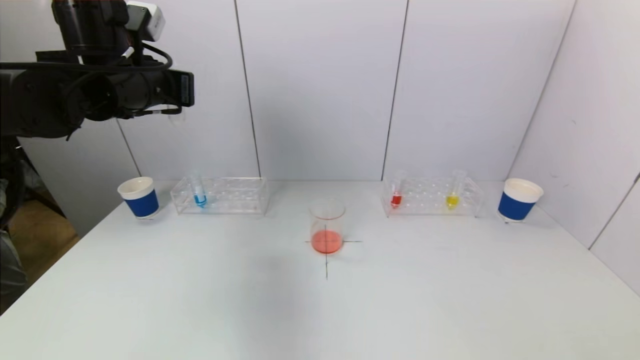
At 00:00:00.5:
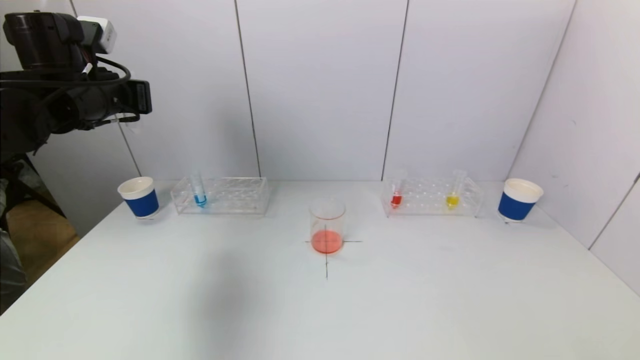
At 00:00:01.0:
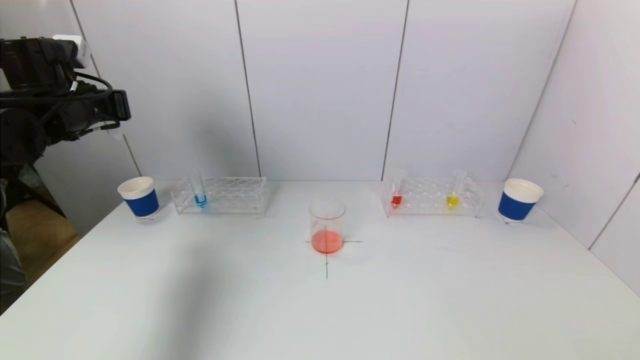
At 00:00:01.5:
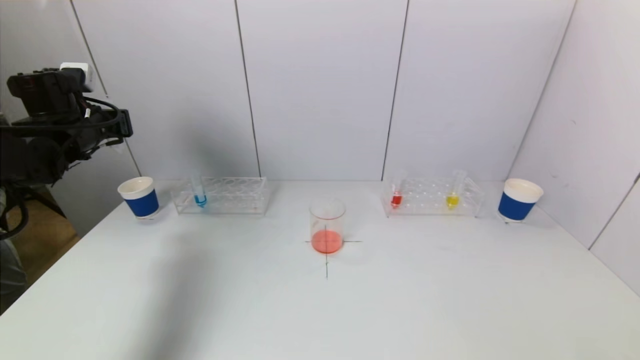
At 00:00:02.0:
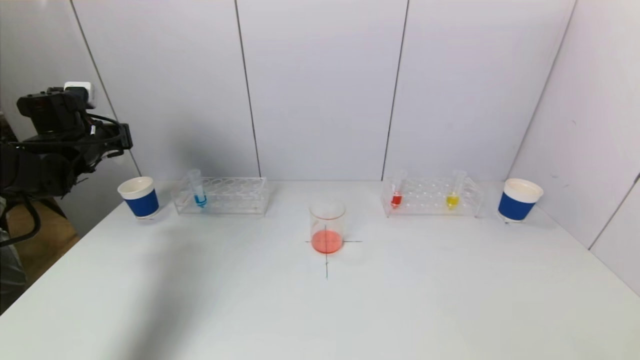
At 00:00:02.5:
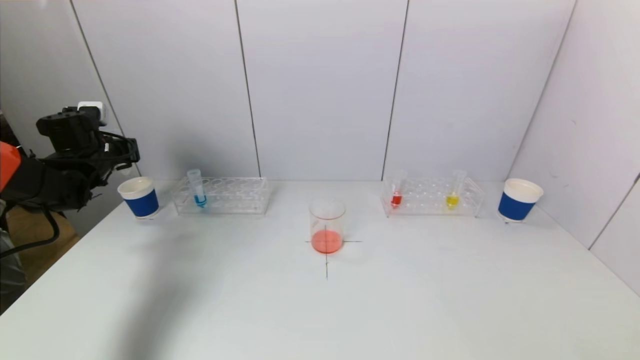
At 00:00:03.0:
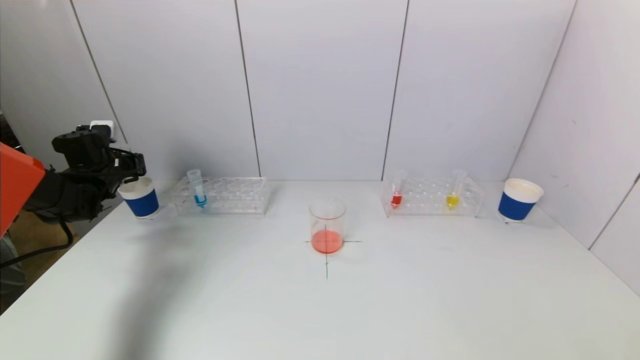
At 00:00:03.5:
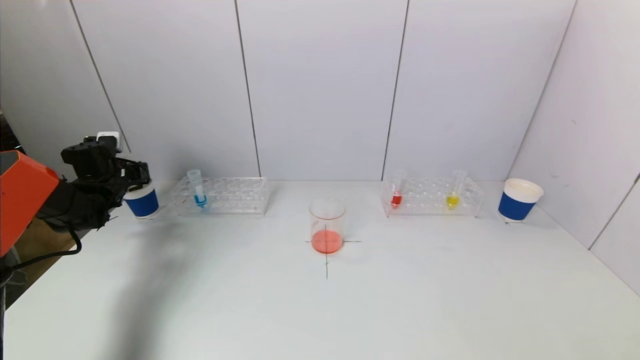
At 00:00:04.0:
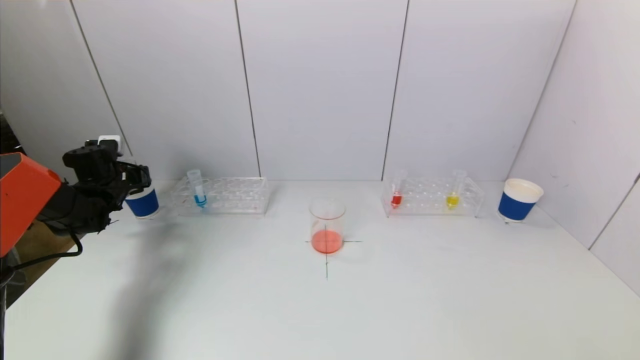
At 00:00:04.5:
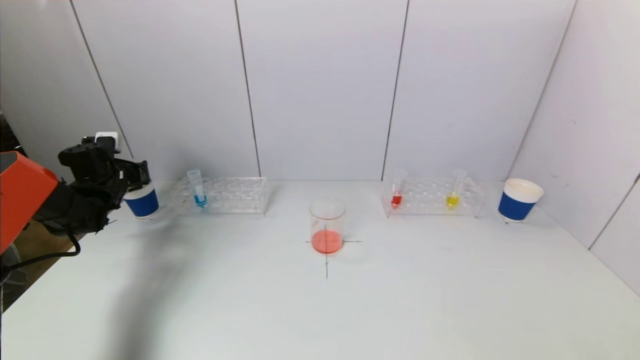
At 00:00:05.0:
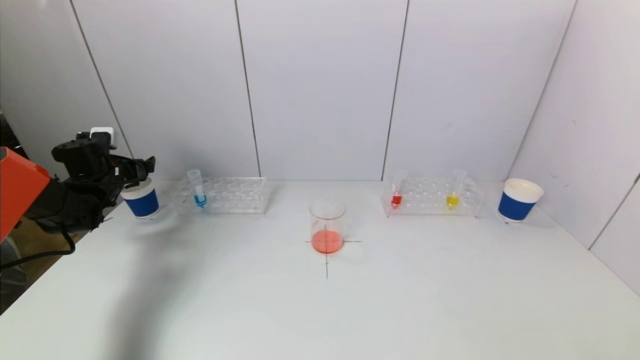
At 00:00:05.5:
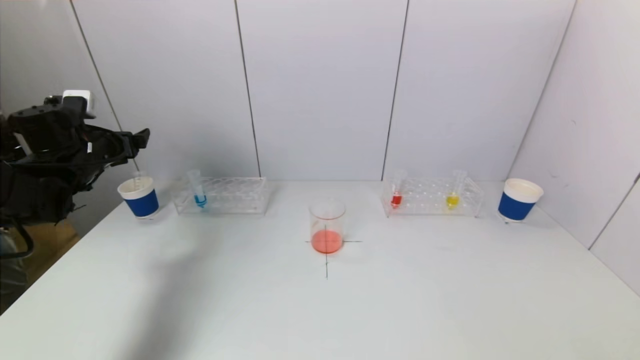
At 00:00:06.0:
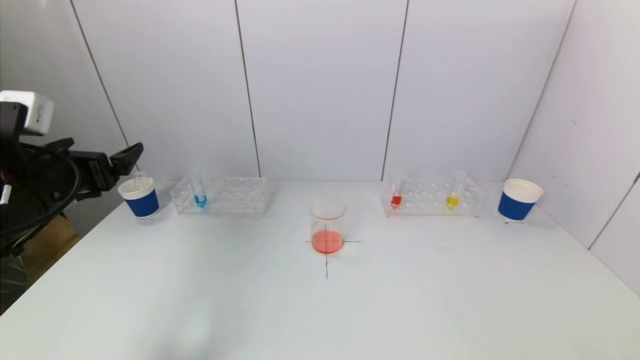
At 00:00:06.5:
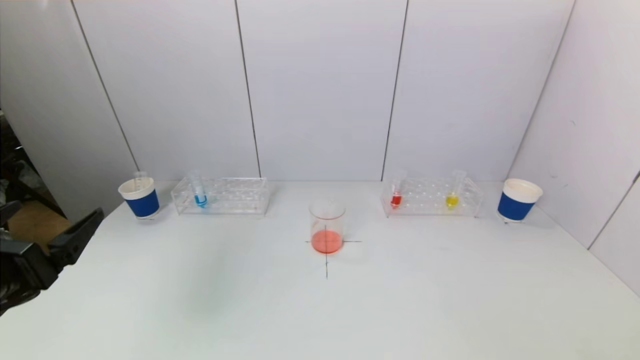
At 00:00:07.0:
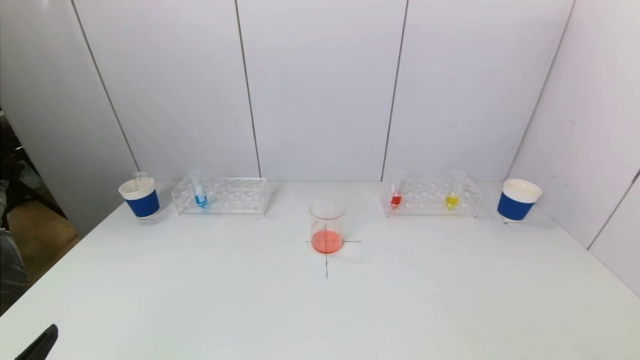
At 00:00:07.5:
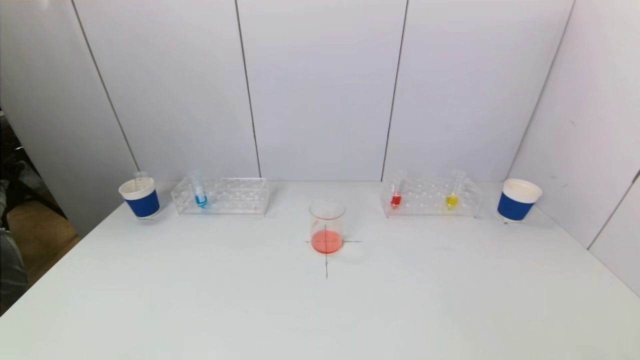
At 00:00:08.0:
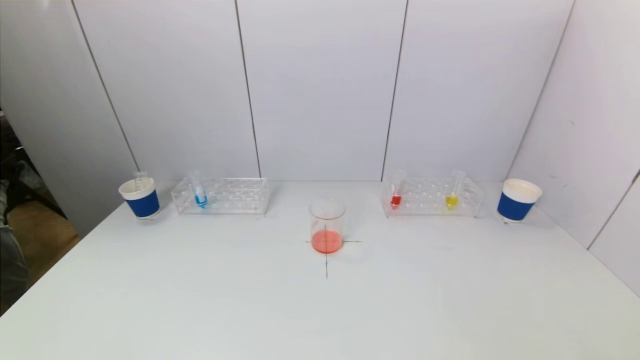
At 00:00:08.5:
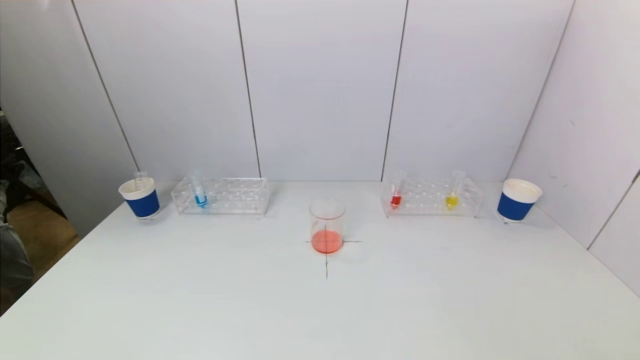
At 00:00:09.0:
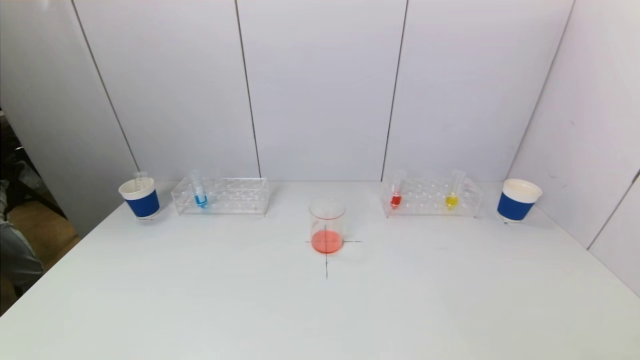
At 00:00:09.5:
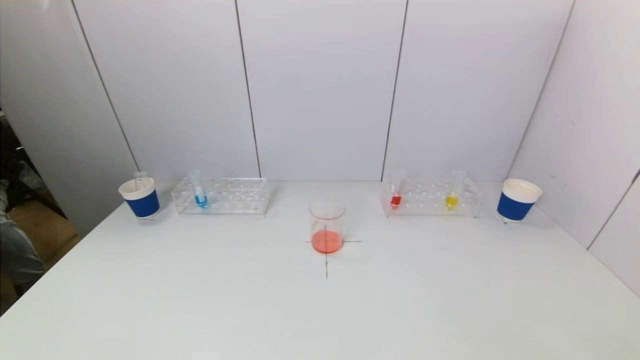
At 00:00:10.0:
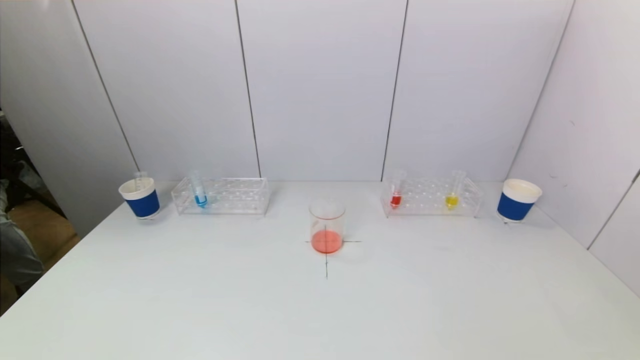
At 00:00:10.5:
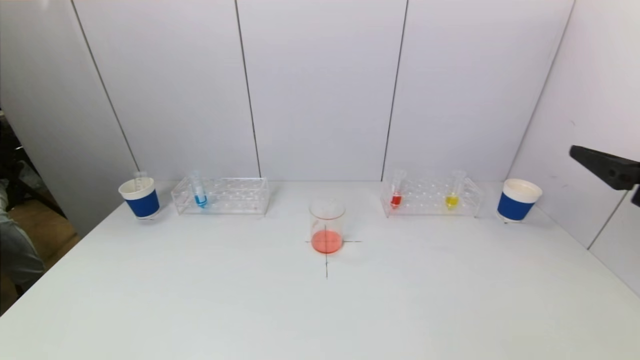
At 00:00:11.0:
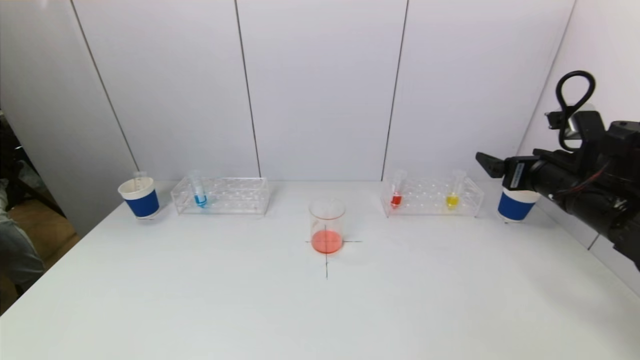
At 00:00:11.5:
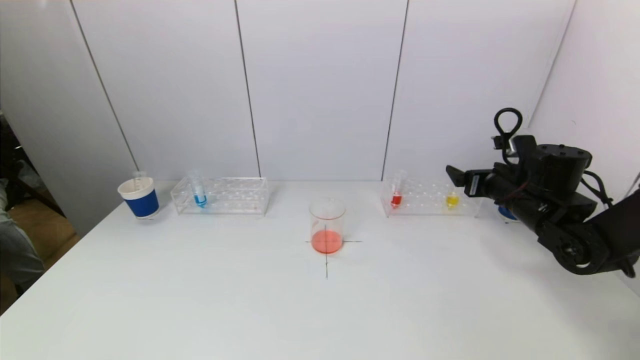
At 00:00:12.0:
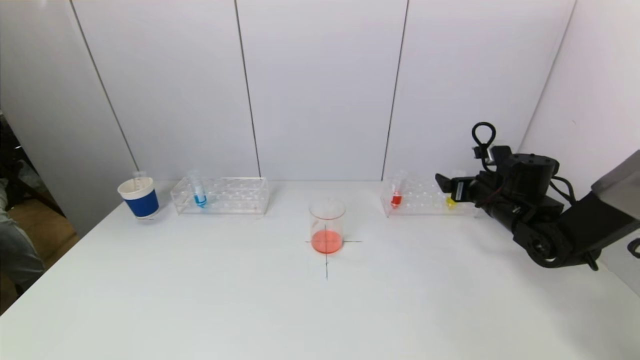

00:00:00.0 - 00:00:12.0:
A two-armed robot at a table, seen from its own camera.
Task of the whole recording: pick up a test tube with pigment on left test tube rack and a test tube with pigment on right test tube rack by grippers and pour them into the beaker.
Step, 00:00:00.0 - 00:00:05.5: Place the test tube into the paper cup with the left gripper.
00:00:00.0 - 00:00:02.0: The left gripper travels to the left and downward by approximately 20 cm.
00:00:02.0 - 00:00:04.0: The left gripper moves downward, approximately 10 cm.
00:00:04.0 - 00:00:06.0: The left gripper moves backward, upward and to the right, about 30 cm, and opens.
00:00:06.0 - 00:00:08.0: The left gripper heads backward and downward, covering about 30 cm.
00:00:10.0 - 00:00:12.0: The right gripper travels forward and downward by approximately 40 cm.

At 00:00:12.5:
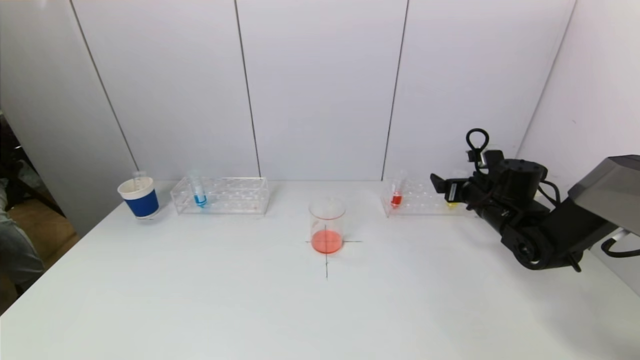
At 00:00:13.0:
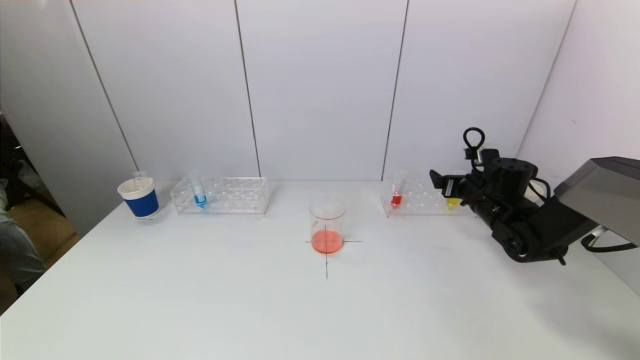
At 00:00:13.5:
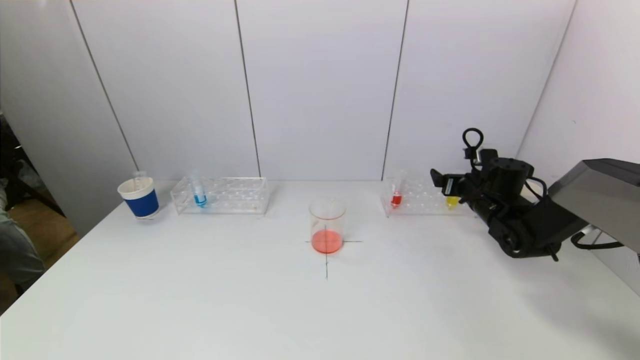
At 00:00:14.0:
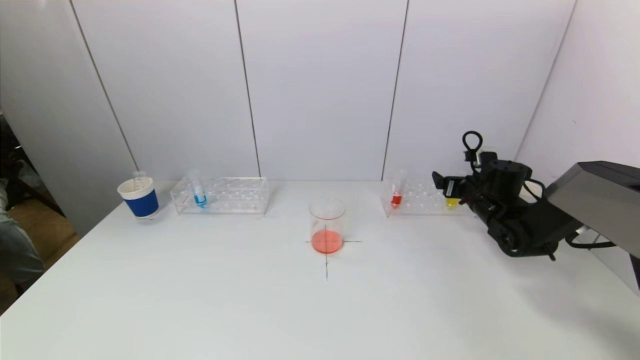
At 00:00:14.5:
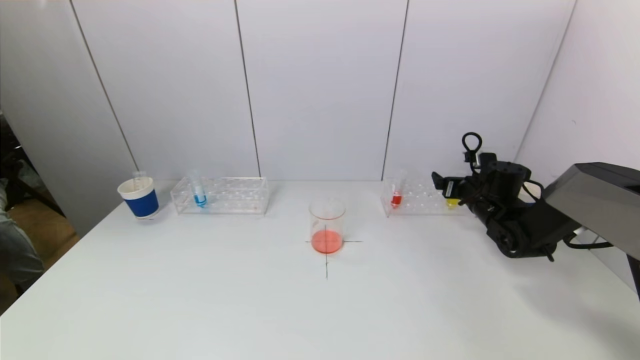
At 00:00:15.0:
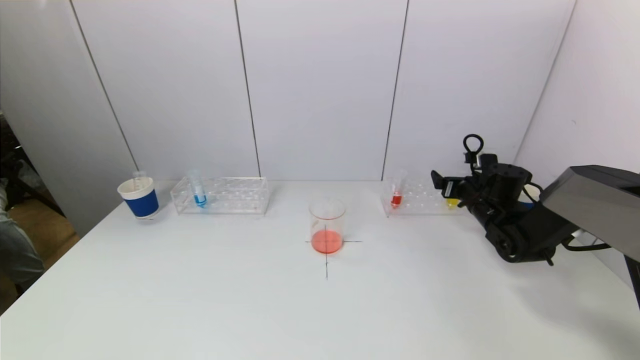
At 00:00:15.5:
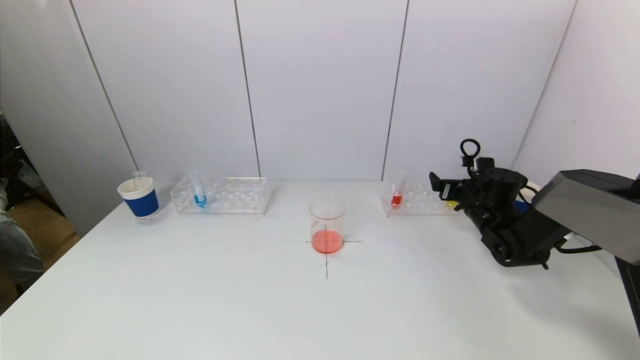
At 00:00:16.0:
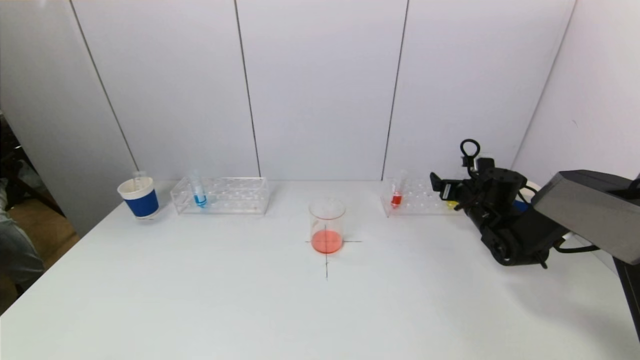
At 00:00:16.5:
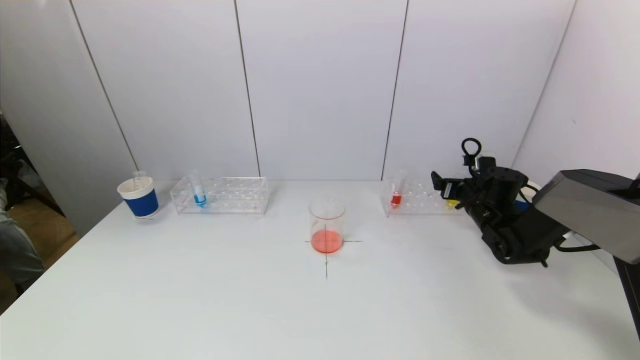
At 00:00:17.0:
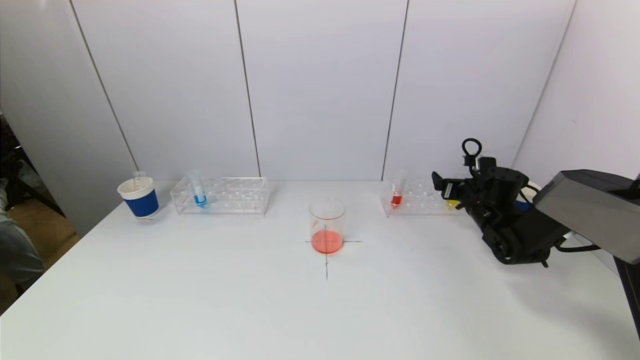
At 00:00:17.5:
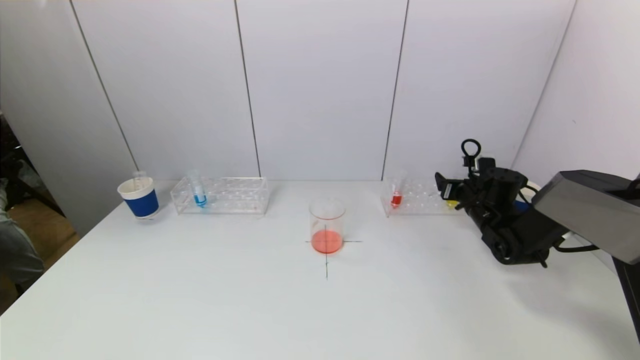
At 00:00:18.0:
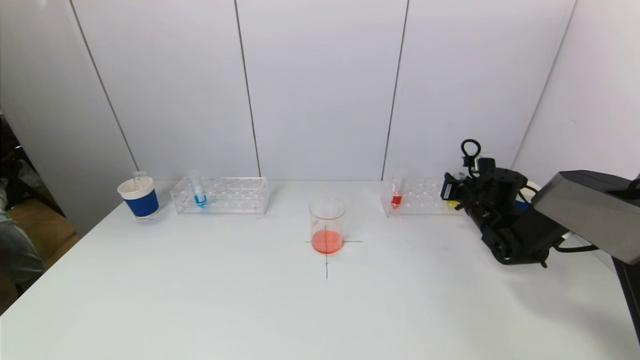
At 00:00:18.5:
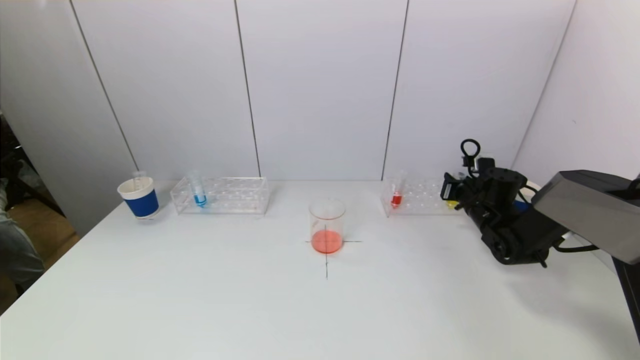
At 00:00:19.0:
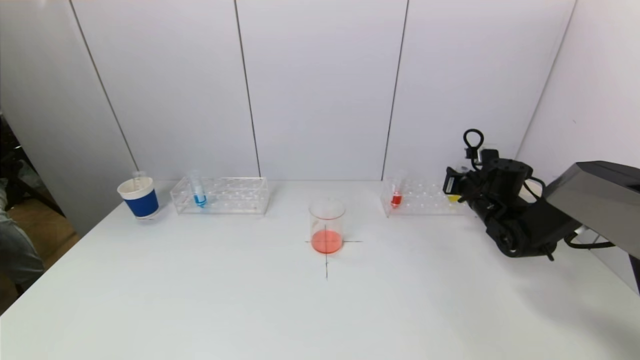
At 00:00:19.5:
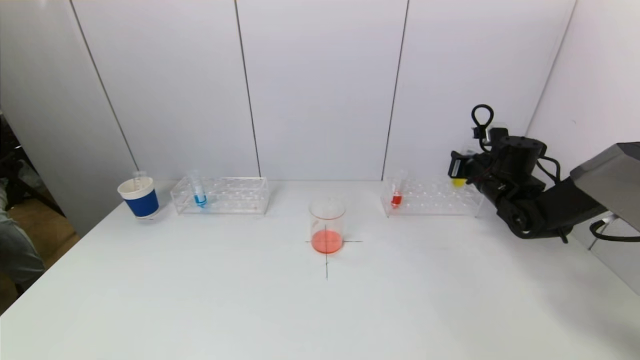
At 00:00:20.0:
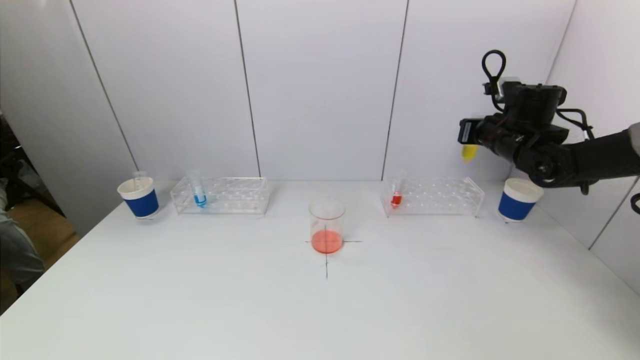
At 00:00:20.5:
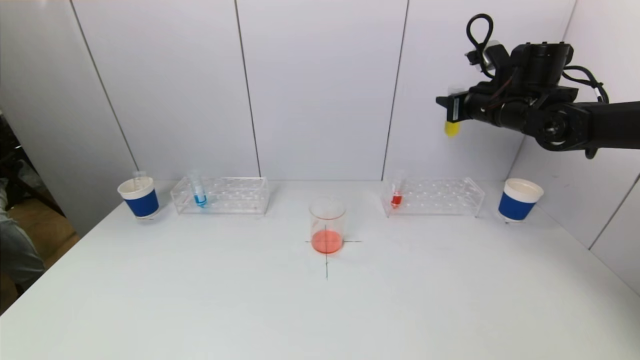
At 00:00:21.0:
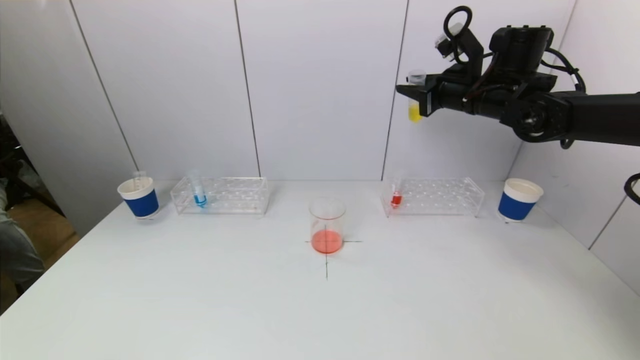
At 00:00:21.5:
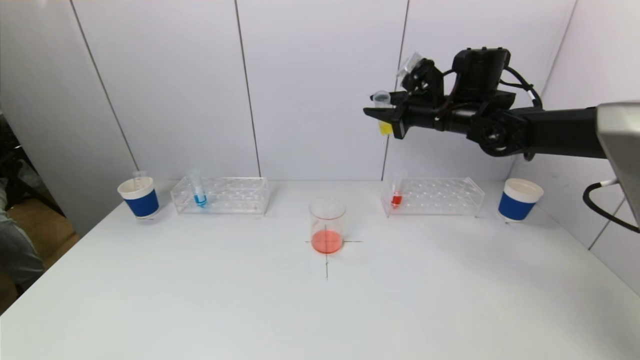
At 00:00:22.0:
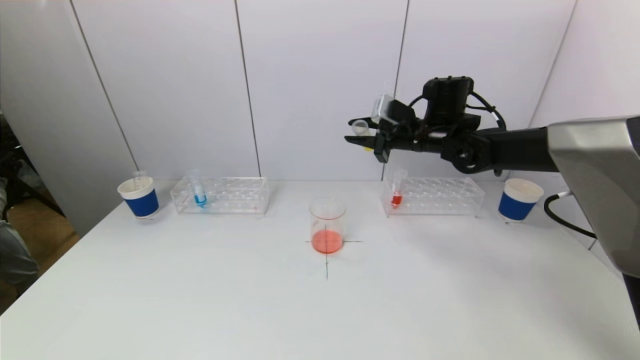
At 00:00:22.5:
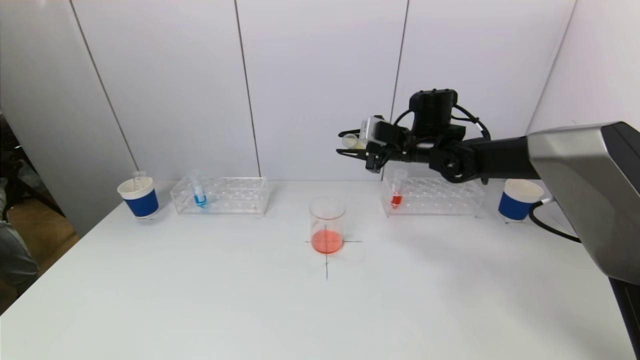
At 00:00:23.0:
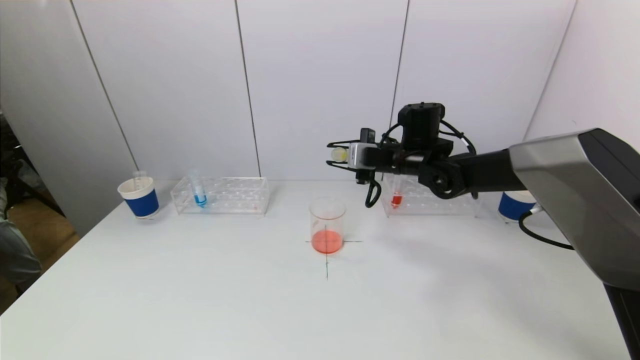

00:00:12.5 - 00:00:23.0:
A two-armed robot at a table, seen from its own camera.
Task of the whole recording: pick up a test tube with pigment on left test tube rack and a test tube with pigment on right test tube rack by grippers and pour them into the beaker.
Step, 00:00:12.5 - 00:00:18.0: Grasp the yellow reagent with the right gripper.
00:00:12.5 - 00:00:14.5: The right gripper shifts by about 5 cm.
00:00:14.5 - 00:00:16.5: Neither gripper changes place.
00:00:16.5 - 00:00:19.0: The right gripper closes.
00:00:19.0 - 00:00:21.0: The right gripper heads upward, covering approximately 20 cm.
00:00:21.0 - 00:00:23.0: The right gripper moves downward and to the left, about 15 cm.
